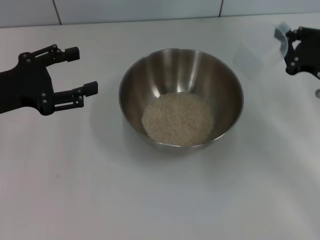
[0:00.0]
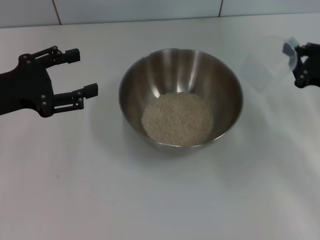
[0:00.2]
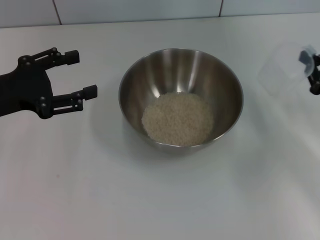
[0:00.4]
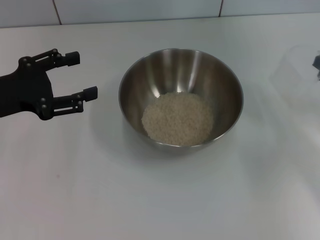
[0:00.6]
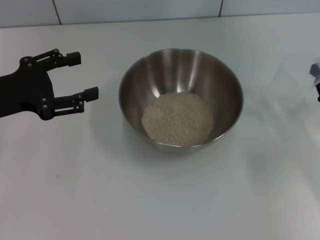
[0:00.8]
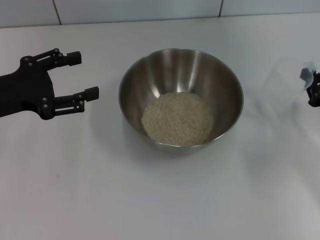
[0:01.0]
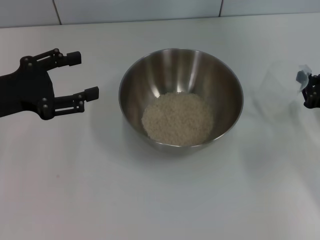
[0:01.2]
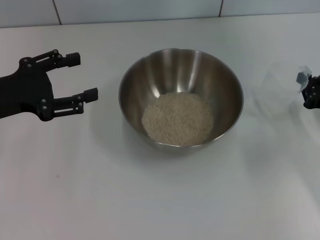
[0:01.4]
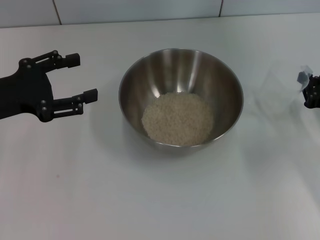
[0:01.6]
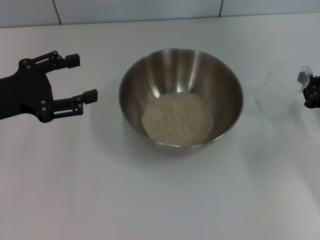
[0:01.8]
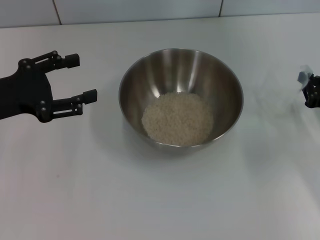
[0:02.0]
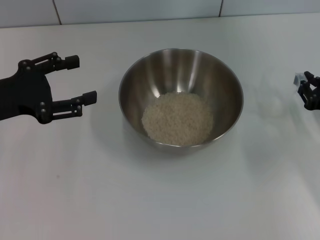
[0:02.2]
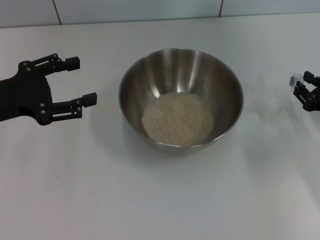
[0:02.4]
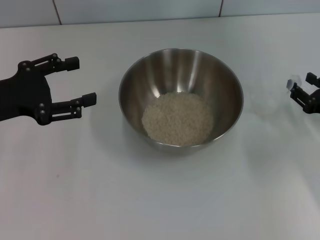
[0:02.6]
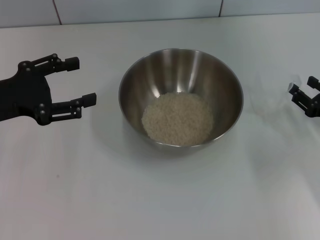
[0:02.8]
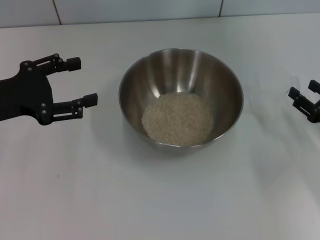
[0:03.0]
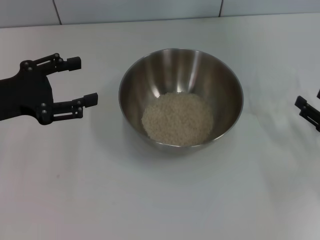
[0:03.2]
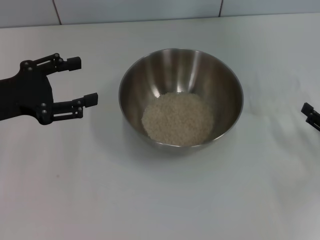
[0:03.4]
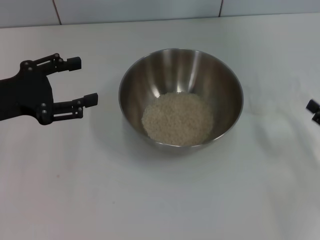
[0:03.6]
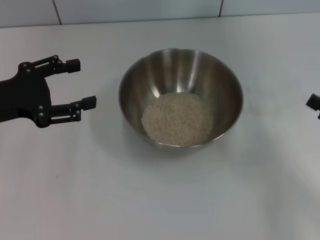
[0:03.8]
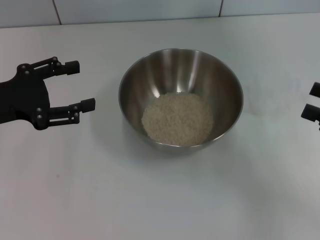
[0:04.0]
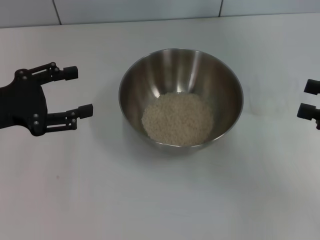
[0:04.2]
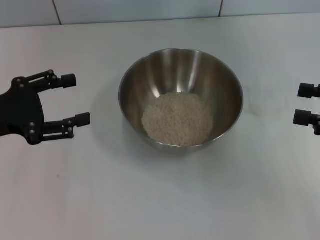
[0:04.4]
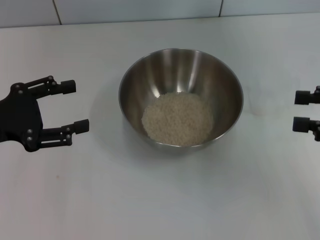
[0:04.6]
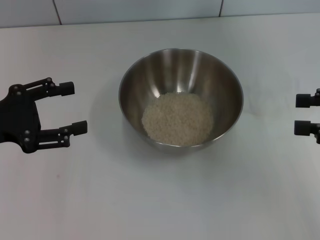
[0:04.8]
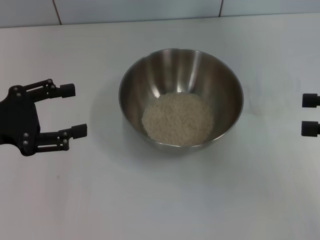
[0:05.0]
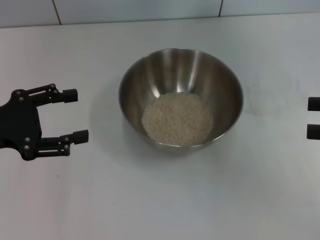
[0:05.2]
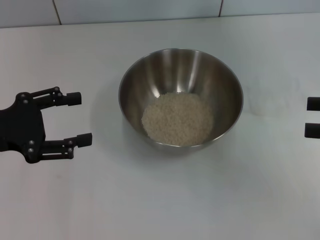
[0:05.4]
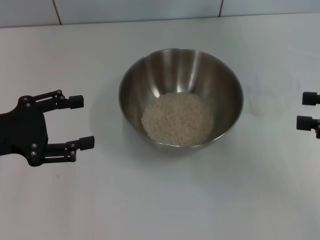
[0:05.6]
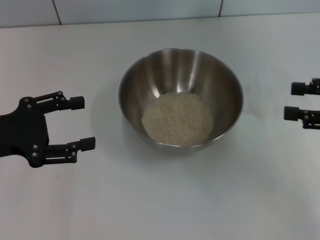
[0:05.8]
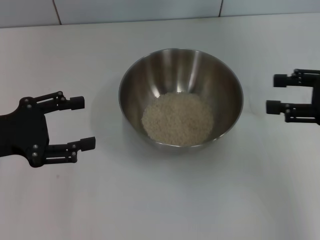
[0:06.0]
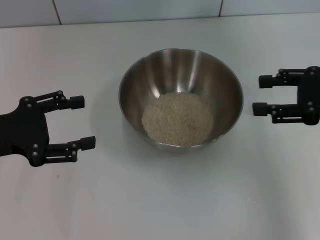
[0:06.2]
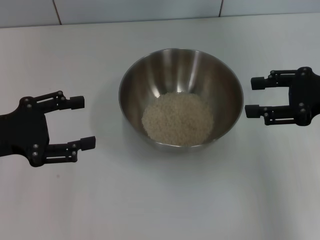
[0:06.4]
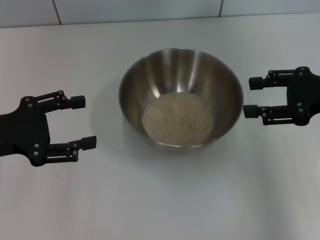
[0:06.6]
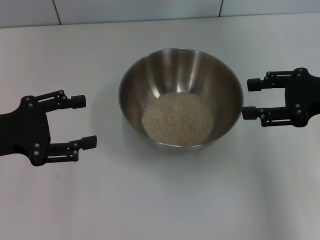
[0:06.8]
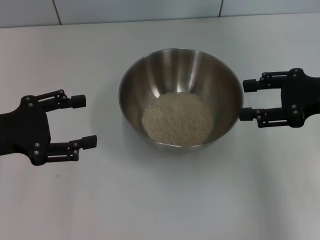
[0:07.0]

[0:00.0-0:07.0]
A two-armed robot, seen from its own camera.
Task of the whole recording: Place the bowl in the middle of the table with one hand and pour the rice from the grain cup into it with the other hand.
Step, 0.0 to 3.4 s: Place the cup on the table with the right gripper.
0.0 to 1.4 s: The right gripper shifts by some 5 cm.
1.4 to 2.8 s: The right gripper opens.
2.8 to 4.2 s: The right gripper moves upward, approximately 10 cm.
4.2 to 5.6 s: The grippers move only a little.
5.6 to 7.0 s: The right gripper shifts about 10 cm to the left and forward.

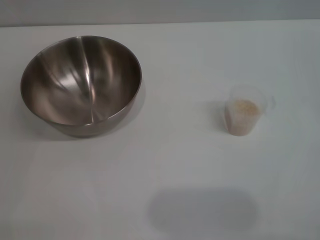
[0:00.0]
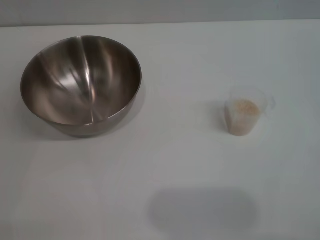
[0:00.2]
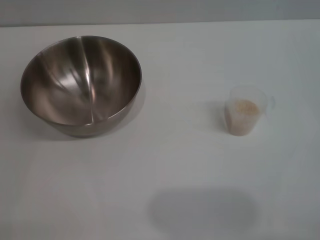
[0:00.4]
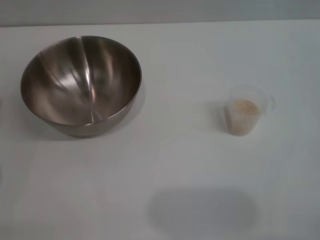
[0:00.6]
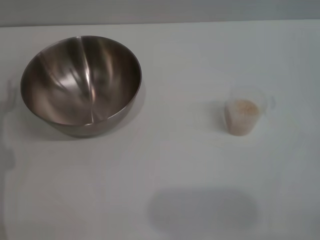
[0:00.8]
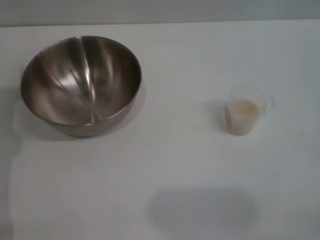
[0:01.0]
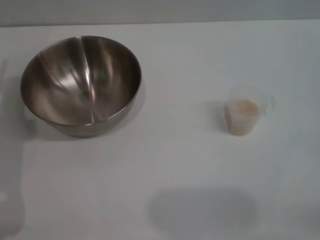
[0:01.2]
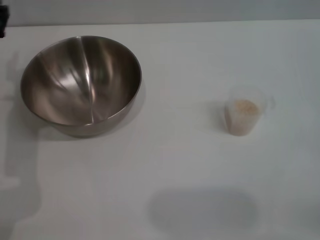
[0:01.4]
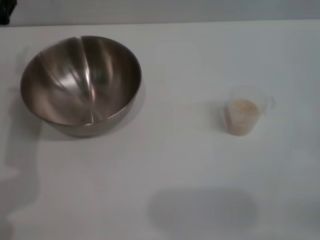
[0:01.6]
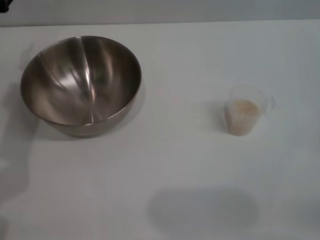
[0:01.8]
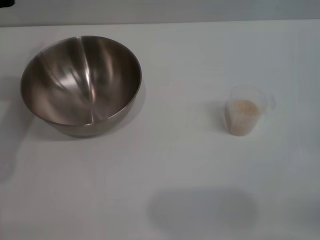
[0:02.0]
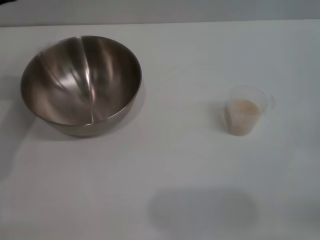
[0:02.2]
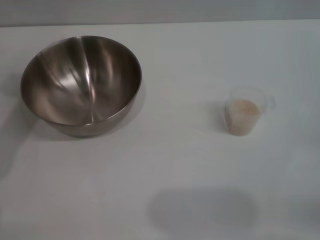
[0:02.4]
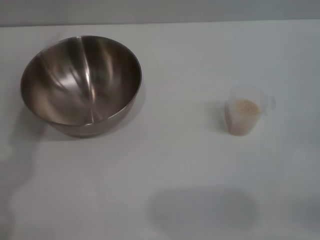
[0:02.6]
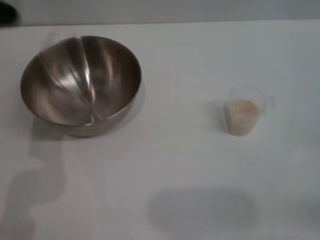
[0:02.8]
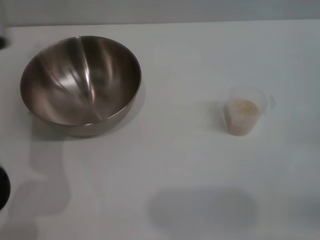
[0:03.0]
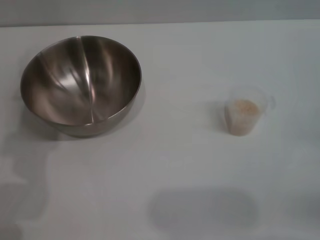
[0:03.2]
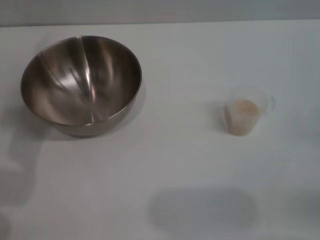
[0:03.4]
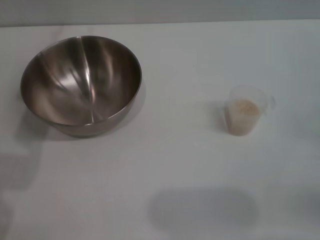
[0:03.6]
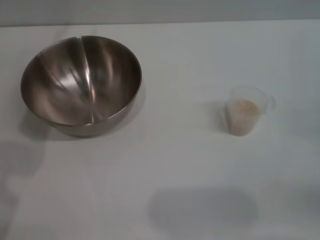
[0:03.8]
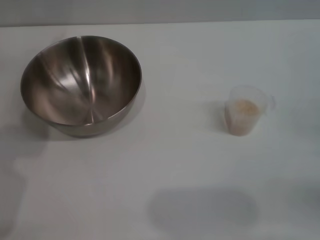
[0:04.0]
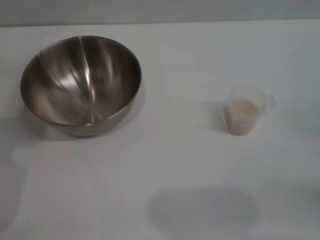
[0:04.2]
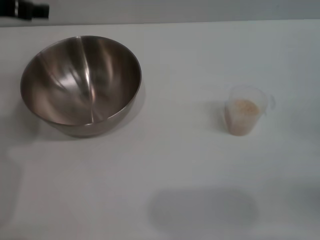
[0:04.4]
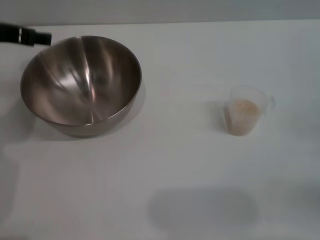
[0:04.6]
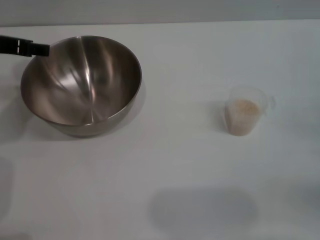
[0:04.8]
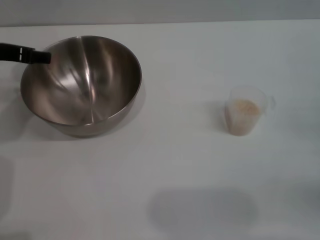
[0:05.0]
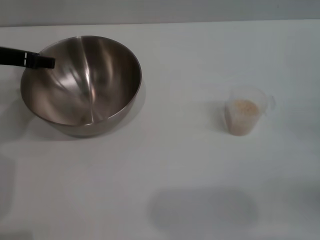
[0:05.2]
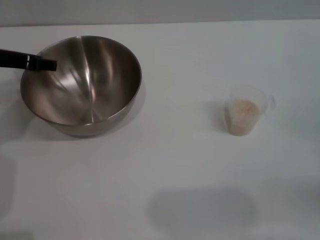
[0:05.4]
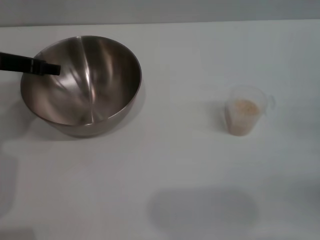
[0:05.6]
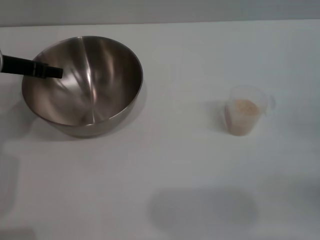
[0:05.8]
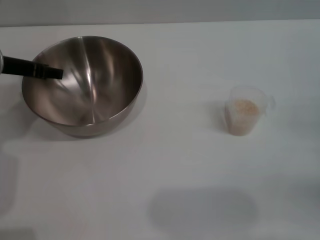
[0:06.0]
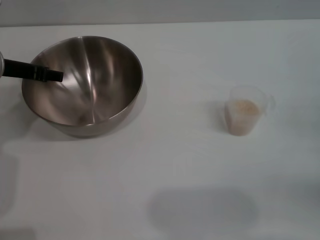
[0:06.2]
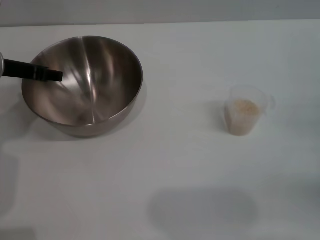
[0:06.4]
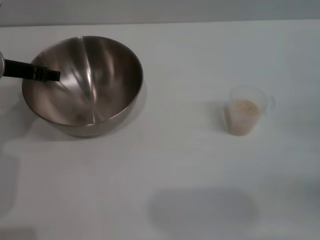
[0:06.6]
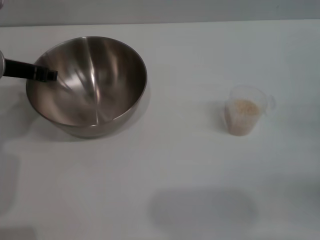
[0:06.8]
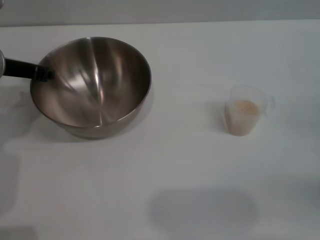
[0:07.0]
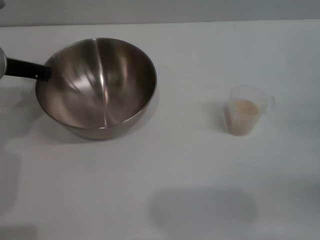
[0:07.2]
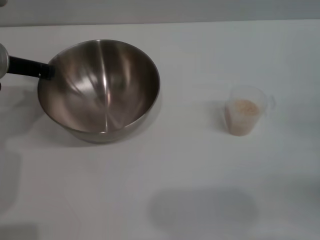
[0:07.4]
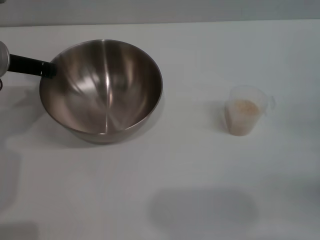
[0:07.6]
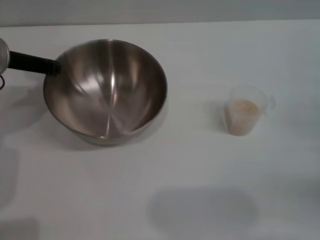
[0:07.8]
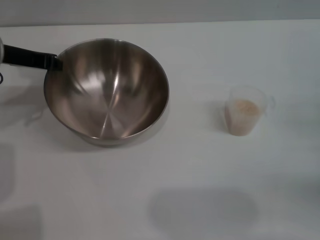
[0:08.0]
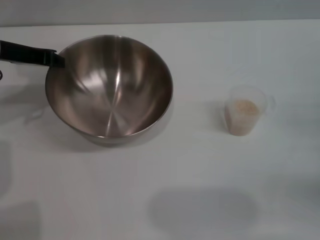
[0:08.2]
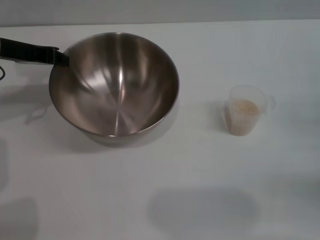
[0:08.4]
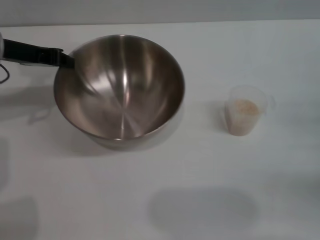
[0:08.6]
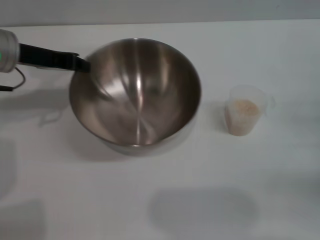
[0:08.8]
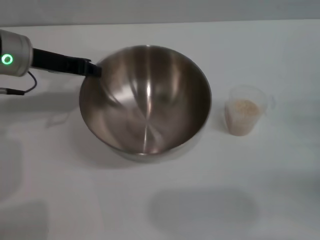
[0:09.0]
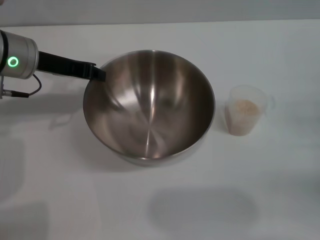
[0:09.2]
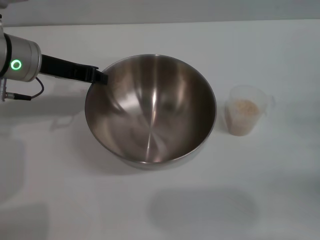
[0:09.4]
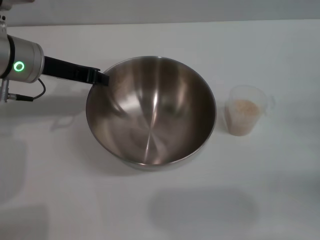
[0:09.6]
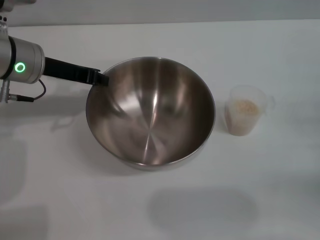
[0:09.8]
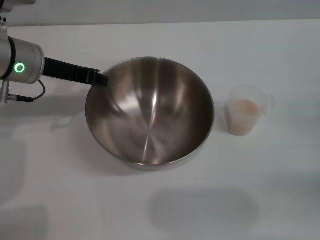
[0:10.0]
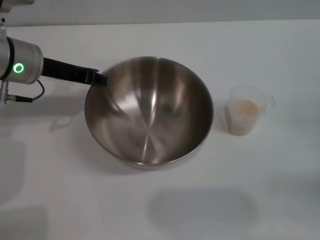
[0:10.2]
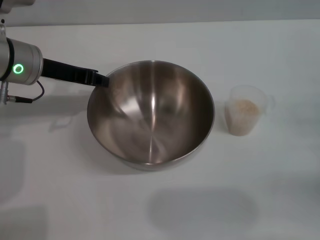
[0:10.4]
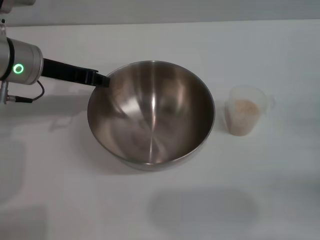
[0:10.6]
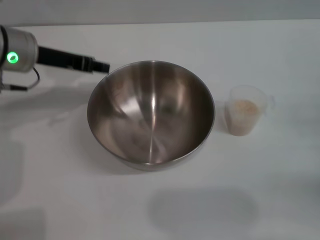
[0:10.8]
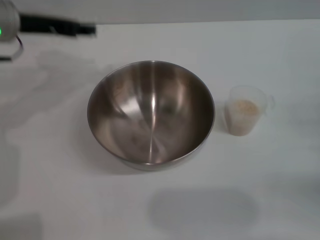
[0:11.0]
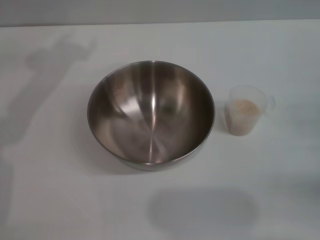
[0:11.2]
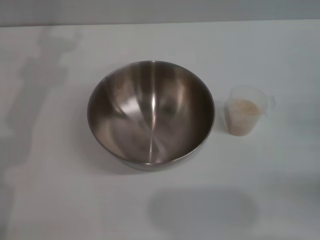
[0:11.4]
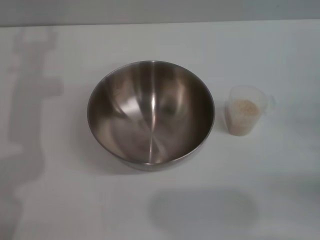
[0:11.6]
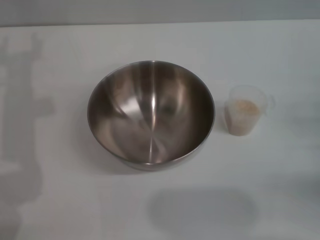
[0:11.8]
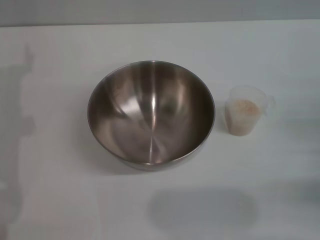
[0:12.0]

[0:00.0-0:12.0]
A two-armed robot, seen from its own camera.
Task of the whole recording: Place the bowl in the middle of the table with one hand and pour the rice from the grain cup into it with the other hand.
Step, 0.0 to 8.2 s: Pick up the bowl with the left gripper.
Step, 8.4 to 10.6 s: Place the bowl in the center of view with the left gripper.
1.6 to 3.0 s: The left gripper ends up roughly 5 cm from where it was.
3.0 to 4.4 s: The left gripper shifts roughly 10 cm forward and upward.
4.4 to 6.0 s: The left gripper travels downward by about 10 cm.
6.0 to 7.6 s: The left gripper closes its fingers.
9.0 to 10.4 s: The grippers make only small movements.
10.4 to 12.0 s: The left gripper travels to the left and backward by approximately 10 cm, goes upward and returns, about 5 cm each way, and opens up.

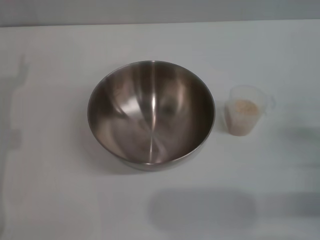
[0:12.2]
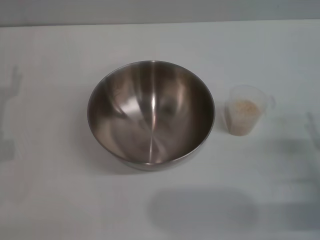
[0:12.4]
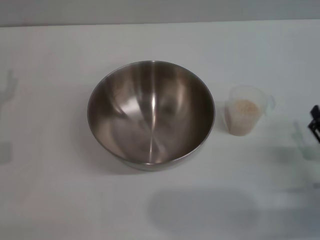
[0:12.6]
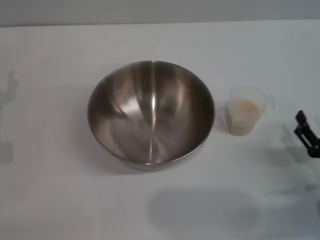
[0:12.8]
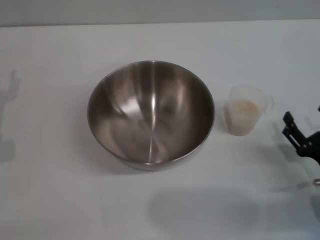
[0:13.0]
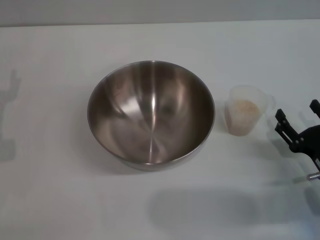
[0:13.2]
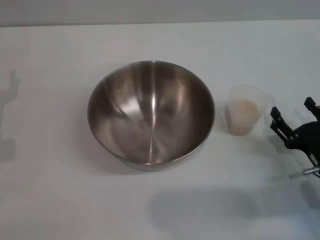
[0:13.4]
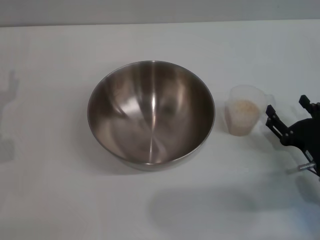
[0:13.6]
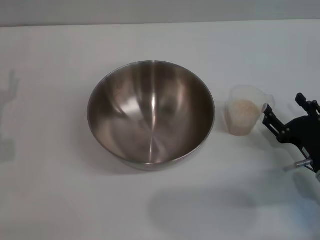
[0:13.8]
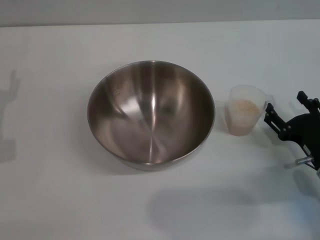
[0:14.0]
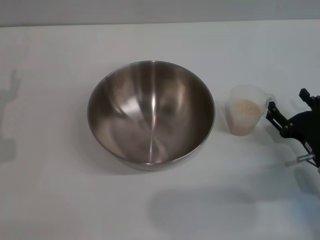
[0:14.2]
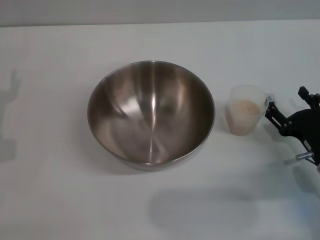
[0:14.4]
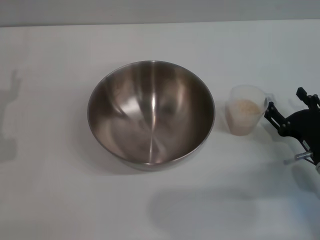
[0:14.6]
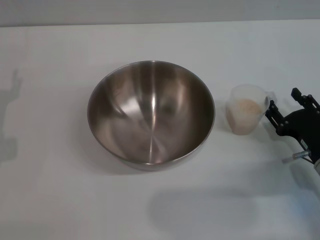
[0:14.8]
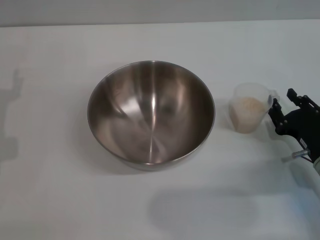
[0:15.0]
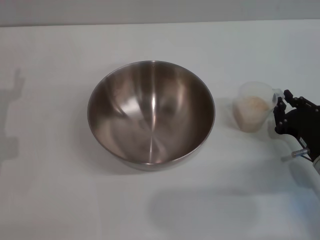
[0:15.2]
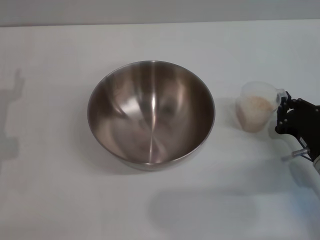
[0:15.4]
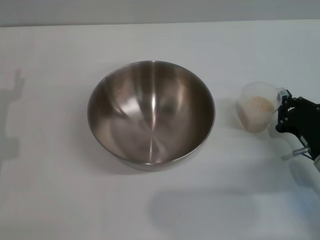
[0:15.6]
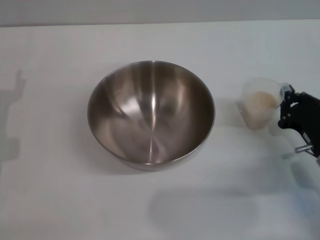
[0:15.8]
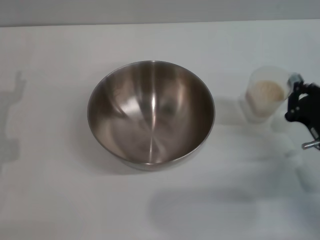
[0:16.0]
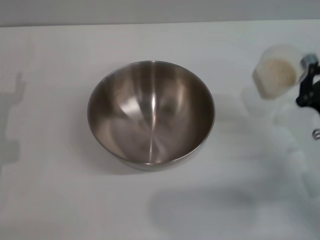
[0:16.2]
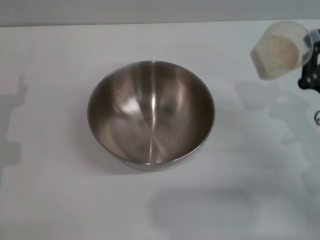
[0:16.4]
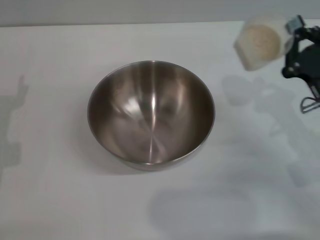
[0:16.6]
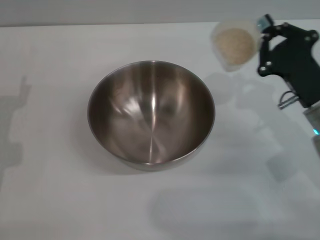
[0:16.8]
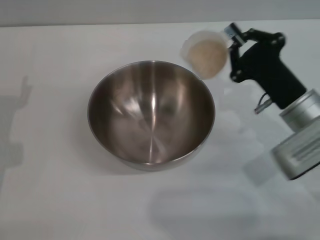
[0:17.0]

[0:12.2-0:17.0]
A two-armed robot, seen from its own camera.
Task of the whole recording: Place the bowl in the middle of the table with one hand and pour the rice from the grain cup into it with the other hand.
Step, 12.2 to 16.0 s: Pick up the cup with rice in it with the right gripper.
12.2 to 13.8 s: The right gripper heads to the left, covering roughly 5 cm.
13.8 to 15.4 s: The right gripper closes its fingers.
15.4 to 17.0 s: The right gripper travels upward, to the left and forward by some 10 cm.
